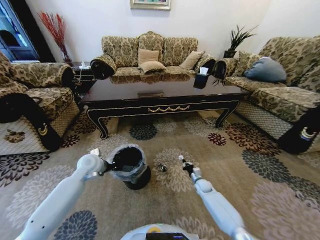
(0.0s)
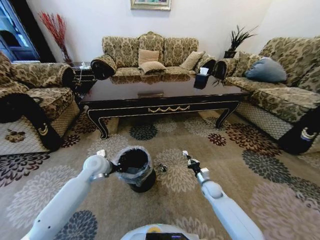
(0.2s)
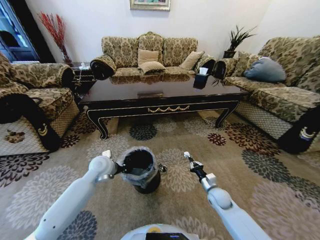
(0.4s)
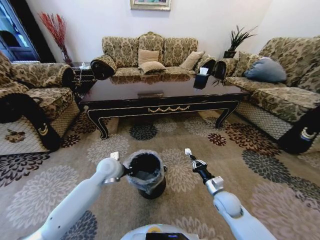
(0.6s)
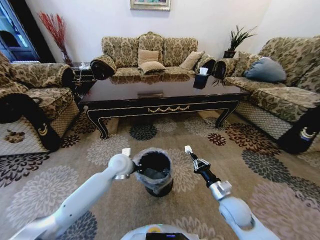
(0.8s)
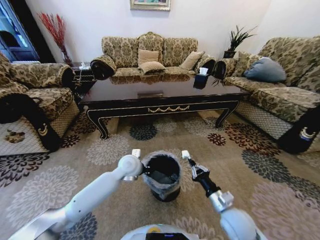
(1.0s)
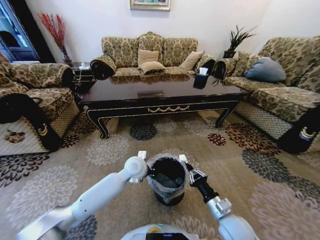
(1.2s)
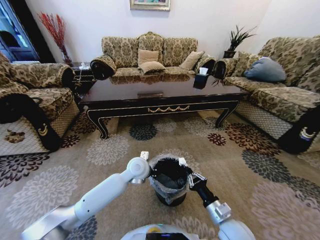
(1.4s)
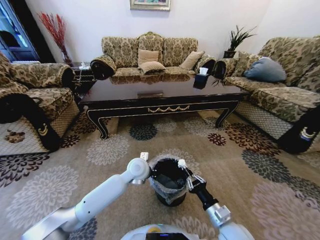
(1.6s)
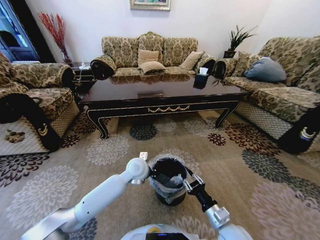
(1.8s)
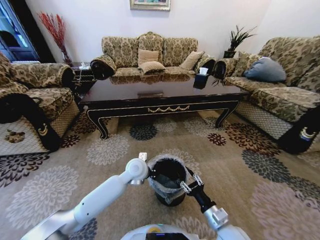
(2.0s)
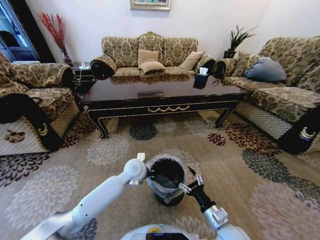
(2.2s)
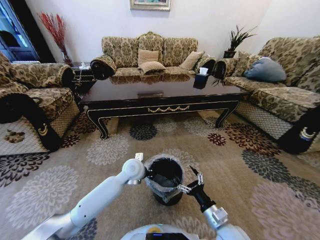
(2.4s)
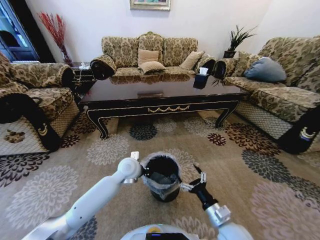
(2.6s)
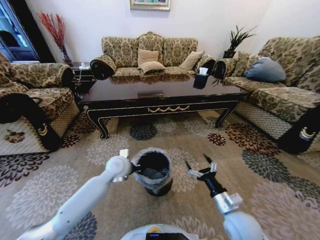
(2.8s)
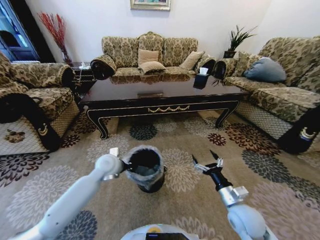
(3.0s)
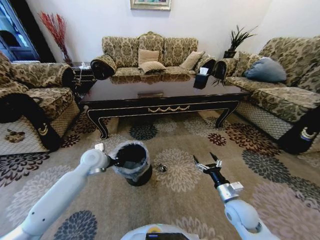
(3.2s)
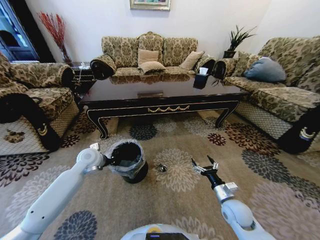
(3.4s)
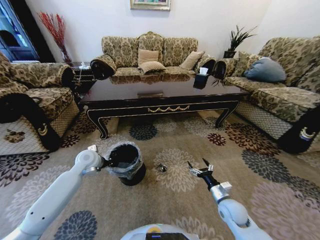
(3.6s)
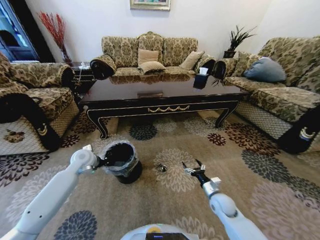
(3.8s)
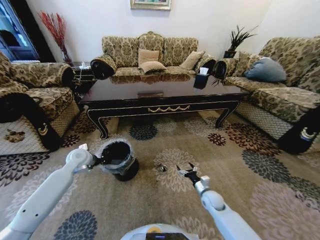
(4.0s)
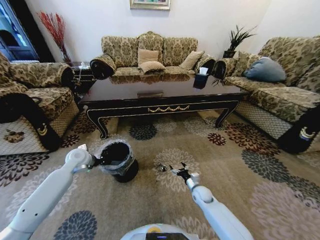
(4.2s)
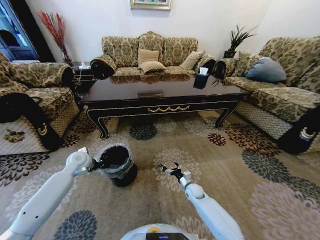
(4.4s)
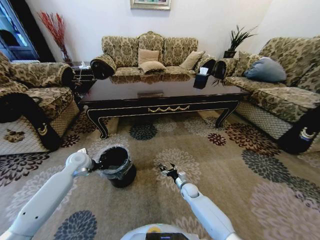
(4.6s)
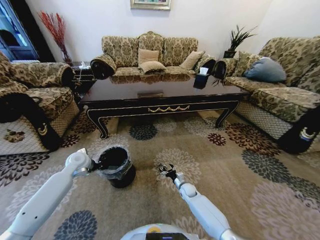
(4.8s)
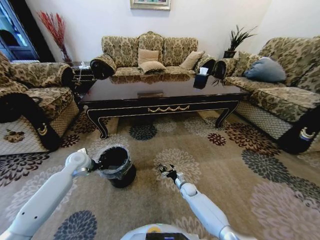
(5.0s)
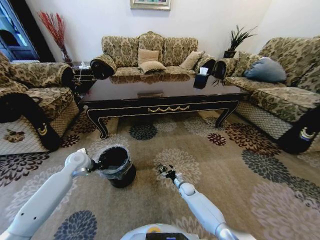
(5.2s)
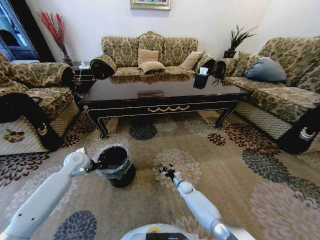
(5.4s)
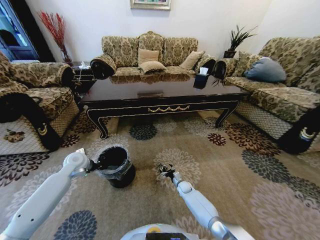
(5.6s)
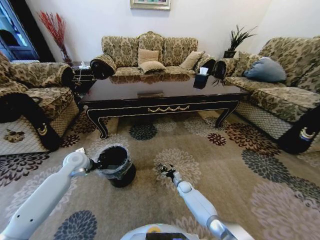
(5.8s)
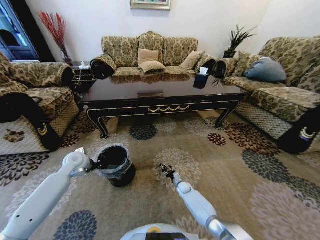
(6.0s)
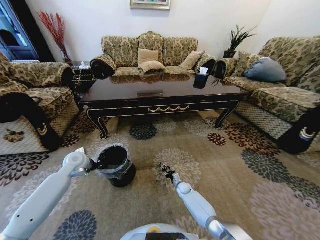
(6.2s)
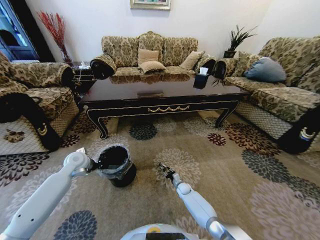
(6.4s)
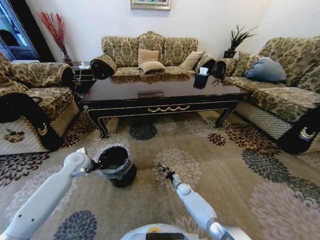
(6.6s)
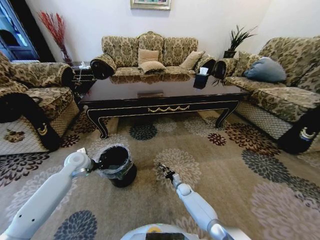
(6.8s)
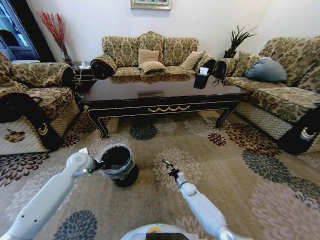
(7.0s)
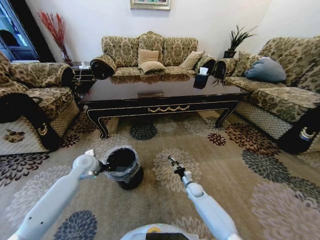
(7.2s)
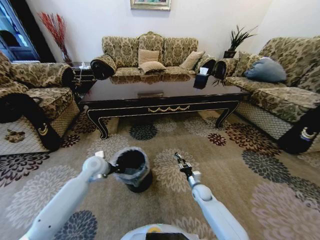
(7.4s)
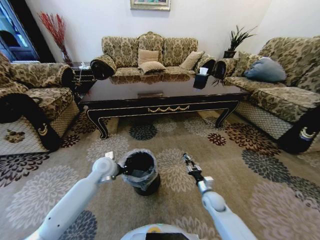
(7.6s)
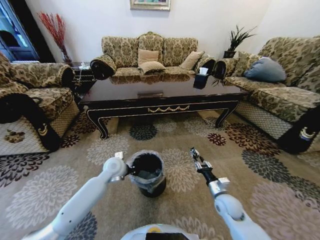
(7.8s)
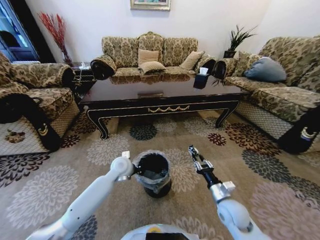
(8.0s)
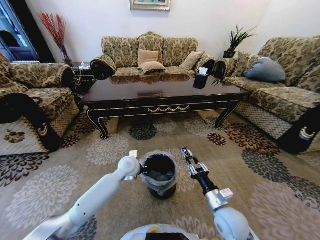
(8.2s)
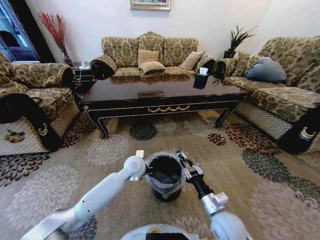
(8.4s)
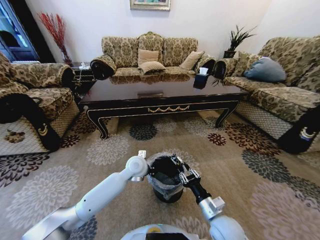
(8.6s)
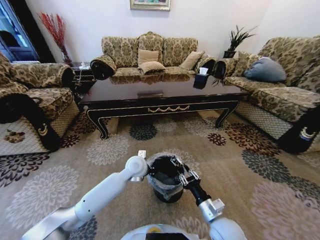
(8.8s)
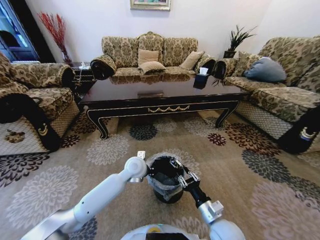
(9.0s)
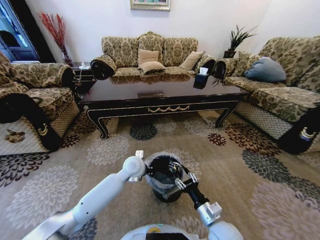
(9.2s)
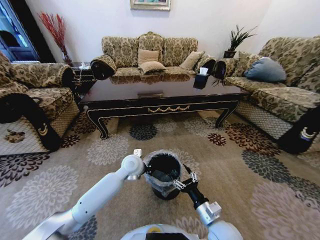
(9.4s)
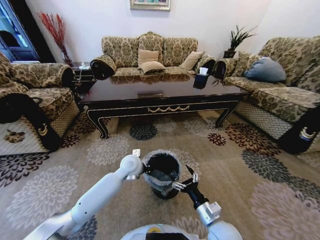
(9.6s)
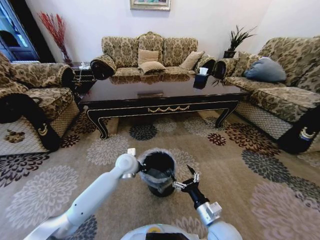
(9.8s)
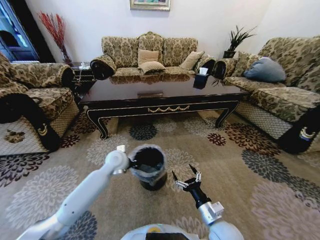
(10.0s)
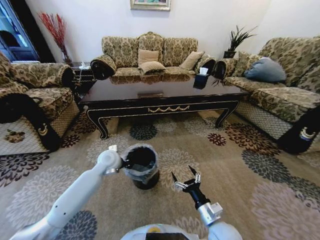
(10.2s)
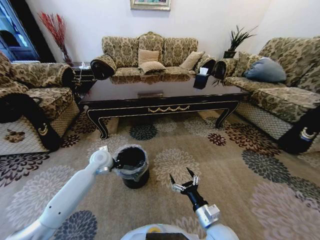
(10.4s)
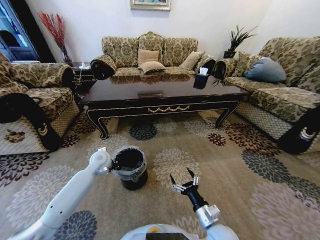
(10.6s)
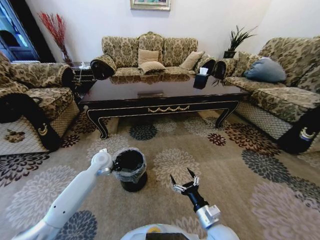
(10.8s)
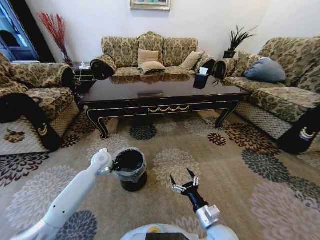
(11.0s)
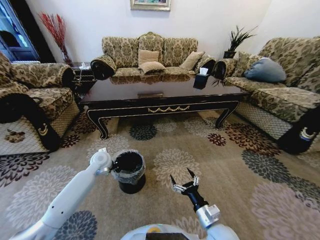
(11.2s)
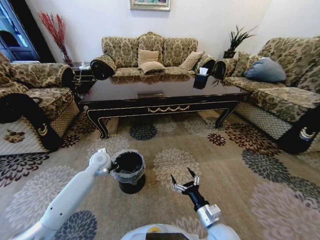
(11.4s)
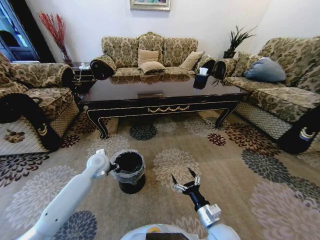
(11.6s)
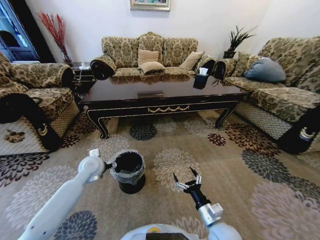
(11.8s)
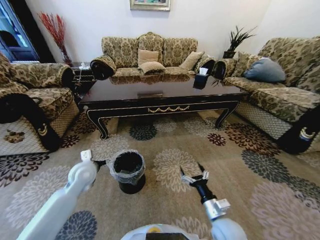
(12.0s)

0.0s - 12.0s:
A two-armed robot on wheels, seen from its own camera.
Task of the whole recording: Move to the front of the table and pick up the trash from the floor, then place it into the trash bin.
0.0s - 1.6s: The right gripper shifts roughly 30 cm backward and upward. Meanwhile the left gripper moves to the right, some 20 cm.
1.6s - 3.0s: The right gripper moves forward and to the right, approximately 10 cm, and opens. The left gripper shifts approximately 15 cm to the left.
3.0s - 4.4s: The left gripper goes roughly 15 cm to the left, while the right gripper moves downward, forward and to the left, some 25 cm.
4.4s - 6.0s: The right gripper shifts roughly 10 cm downward.
6.0s - 7.6s: The right gripper travels upward, backward and to the right by roughly 20 cm, and closes. Meanwhile the left gripper heads to the right, covering approximately 15 cm.
7.6s - 9.0s: The right gripper shifts approximately 20 cm backward, upward and to the left, while the left gripper travels to the right by roughly 15 cm.
9.0s - 10.4s: The left gripper goes some 15 cm to the left. Meanwhile the right gripper opens its fingers.
10.4s - 12.0s: The left gripper shifts roughly 10 cm backward, and opens its fingers.

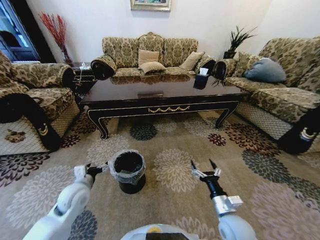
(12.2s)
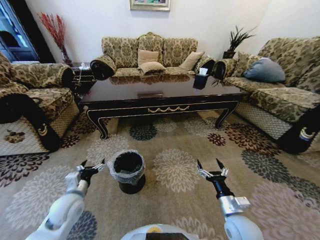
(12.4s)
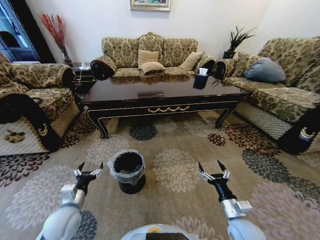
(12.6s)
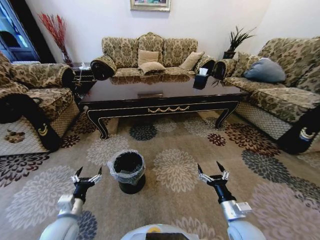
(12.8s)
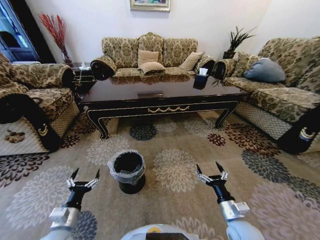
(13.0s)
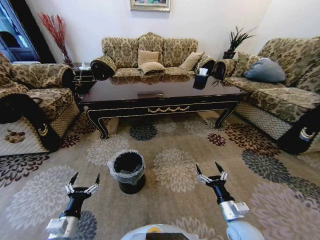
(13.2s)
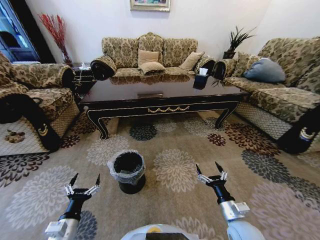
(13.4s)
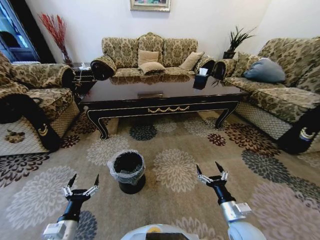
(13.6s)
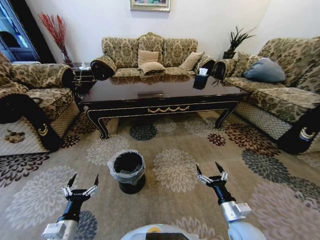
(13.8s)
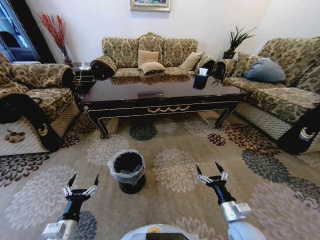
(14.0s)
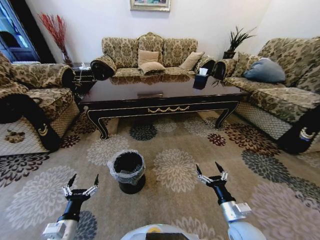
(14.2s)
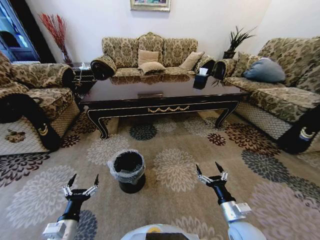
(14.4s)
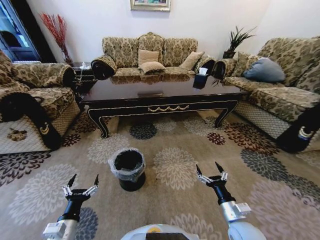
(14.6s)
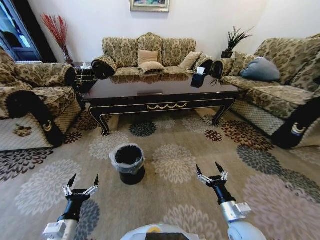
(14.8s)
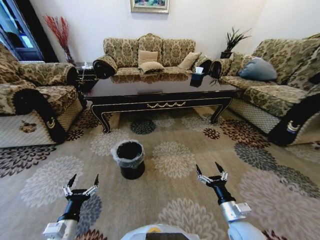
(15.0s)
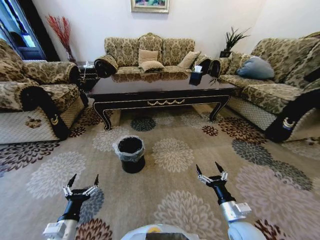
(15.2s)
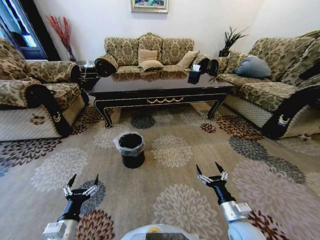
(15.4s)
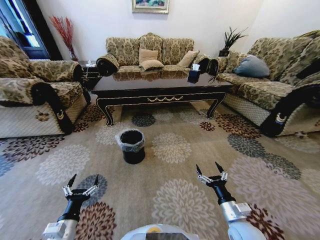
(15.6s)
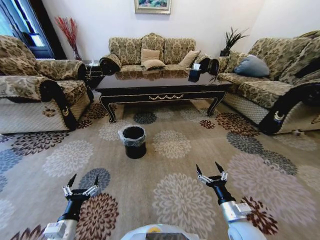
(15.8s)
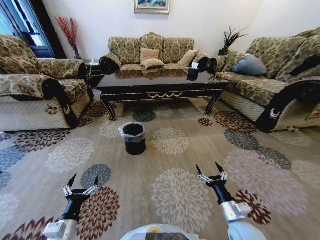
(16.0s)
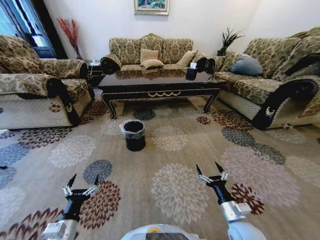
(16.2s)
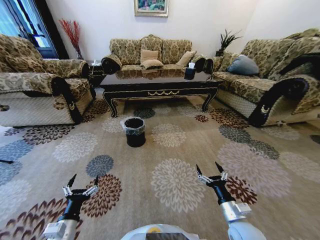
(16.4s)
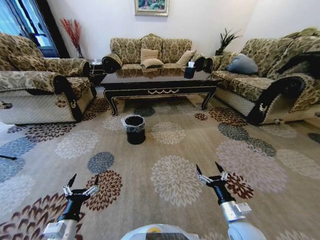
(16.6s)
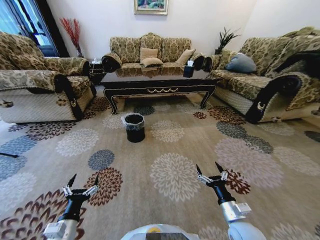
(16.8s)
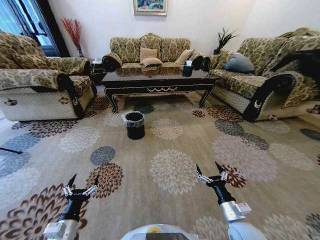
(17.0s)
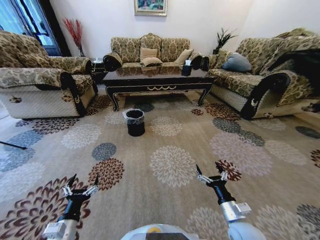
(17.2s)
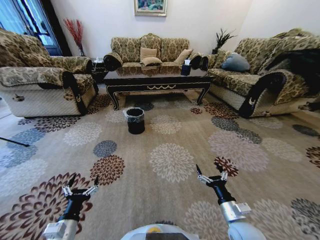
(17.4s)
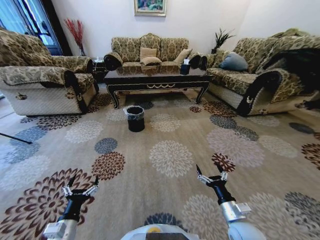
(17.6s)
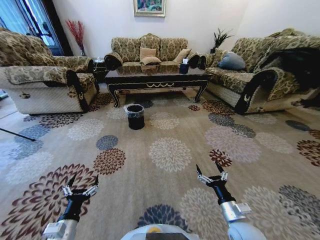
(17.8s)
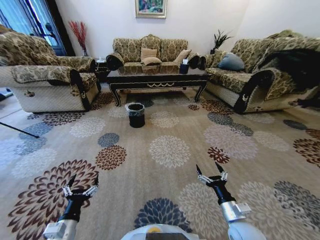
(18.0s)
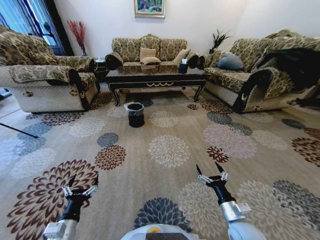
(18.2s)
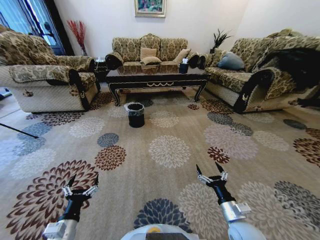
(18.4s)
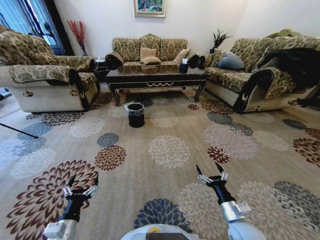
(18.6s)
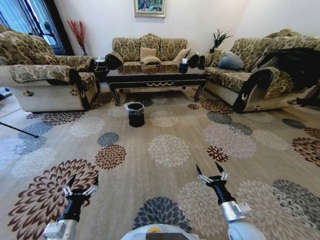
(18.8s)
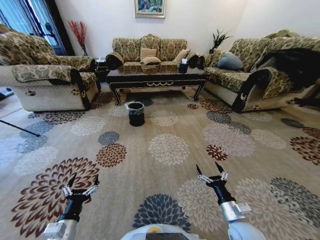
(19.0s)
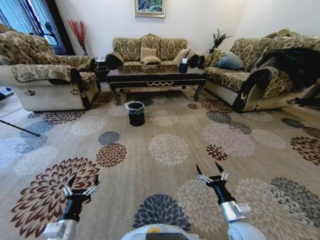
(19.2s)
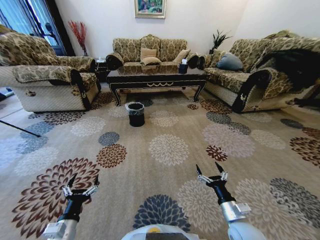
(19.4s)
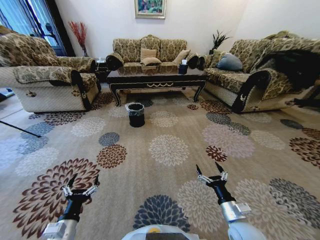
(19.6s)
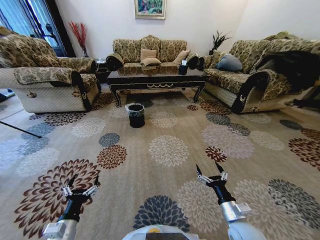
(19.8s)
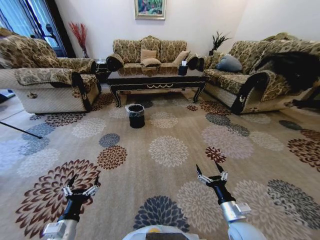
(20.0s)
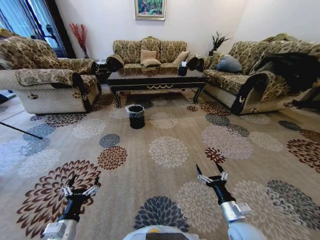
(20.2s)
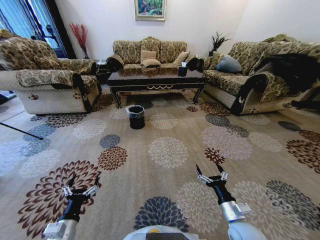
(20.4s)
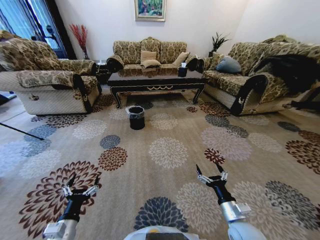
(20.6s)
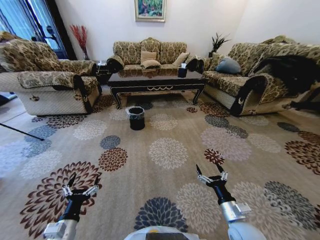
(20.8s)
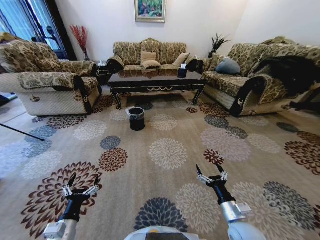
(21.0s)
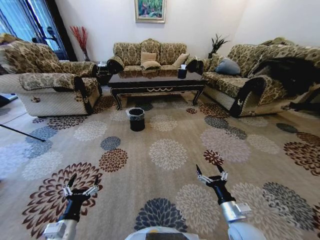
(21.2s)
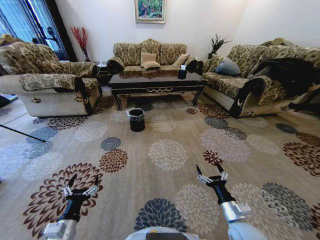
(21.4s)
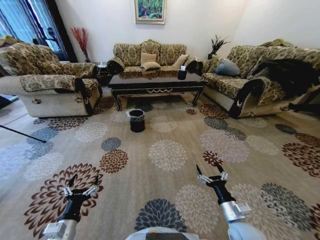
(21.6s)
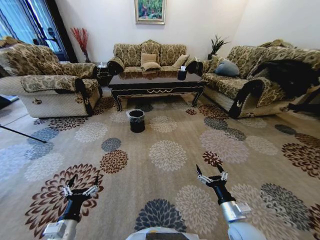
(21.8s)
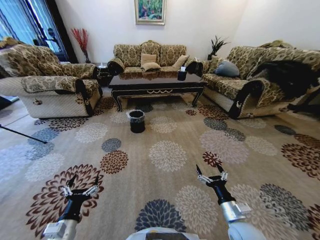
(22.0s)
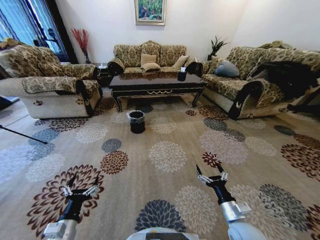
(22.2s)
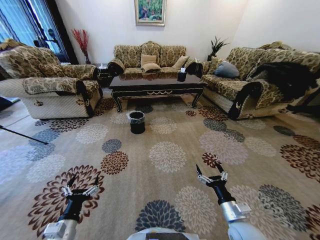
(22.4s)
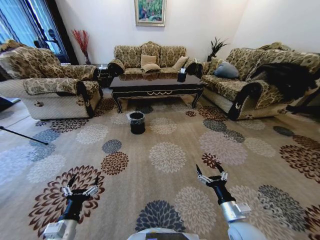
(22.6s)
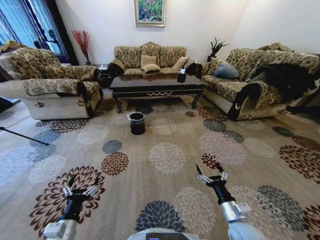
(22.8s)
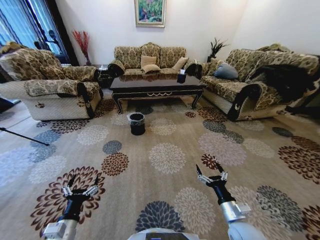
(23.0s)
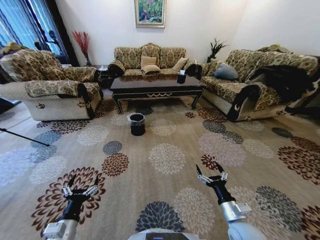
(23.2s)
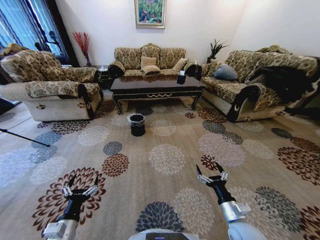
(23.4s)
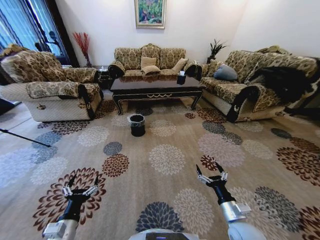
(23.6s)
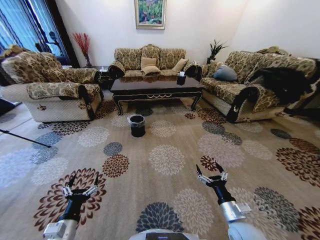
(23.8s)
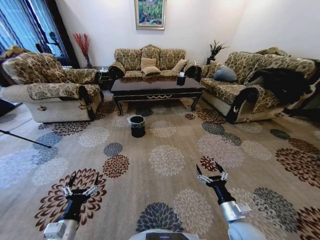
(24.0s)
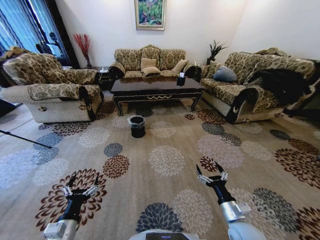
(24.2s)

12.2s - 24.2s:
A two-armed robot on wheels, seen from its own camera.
Task of the whole recording: Move to the front of the table and pick up the trash from the floor, then place it into the trash bin.
12.2s - 13.8s: The left gripper goes about 15 cm backward.
18.2s - 19.8s: Neither gripper changes place.
